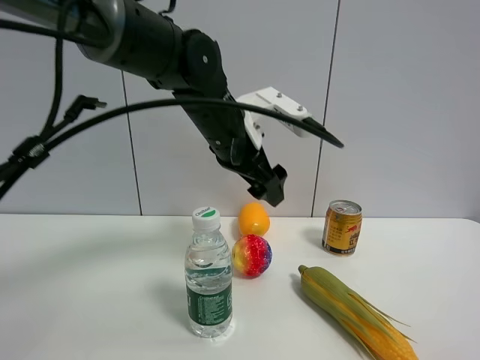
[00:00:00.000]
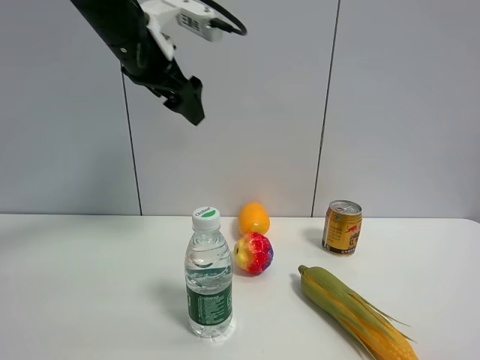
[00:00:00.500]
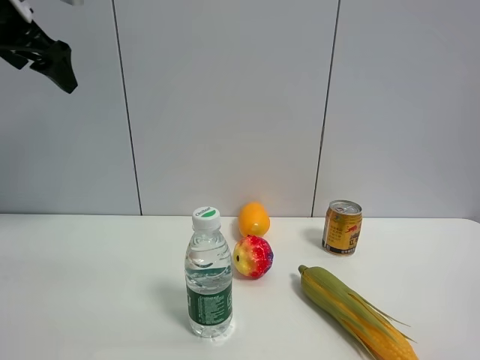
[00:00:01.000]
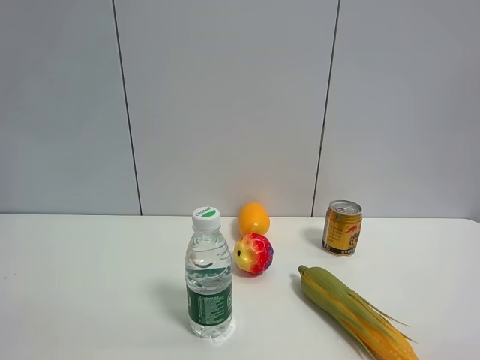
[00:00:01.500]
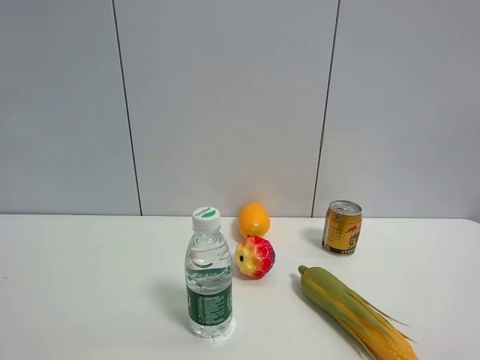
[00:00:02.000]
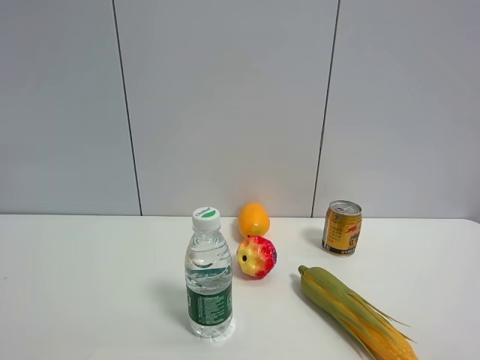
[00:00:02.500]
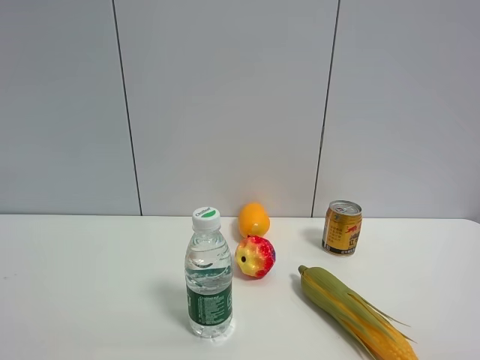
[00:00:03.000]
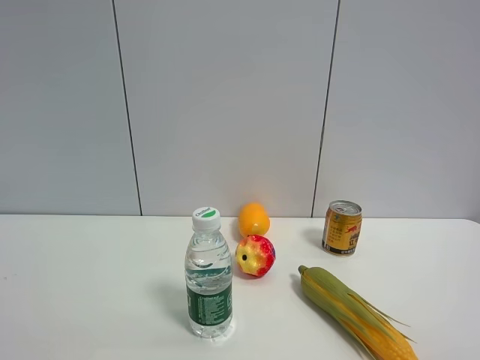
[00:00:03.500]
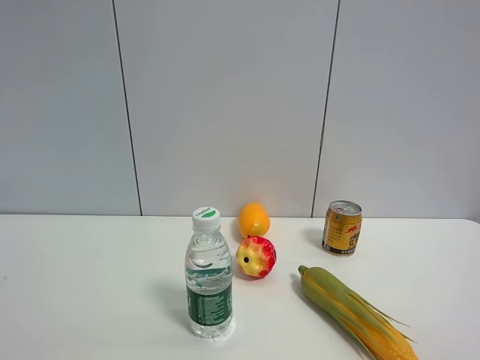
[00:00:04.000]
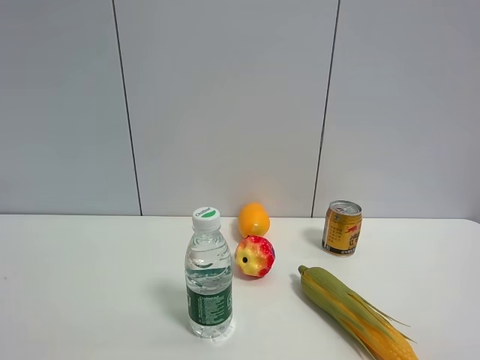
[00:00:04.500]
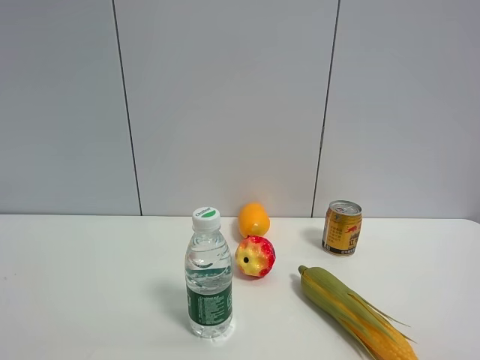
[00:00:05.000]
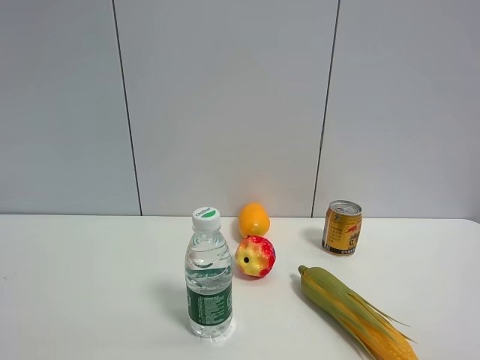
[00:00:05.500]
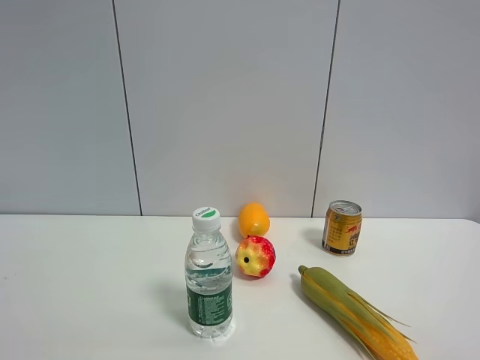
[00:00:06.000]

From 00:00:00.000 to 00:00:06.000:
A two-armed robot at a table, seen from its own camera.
Task of the whole recording: the gripper move the object.
From 00:00:00.000 to 00:00:02.000: The left gripper travels to the left, backward and upward by approximately 40 cm.
From 00:00:04.000 to 00:00:06.000: Both grippers stay put.

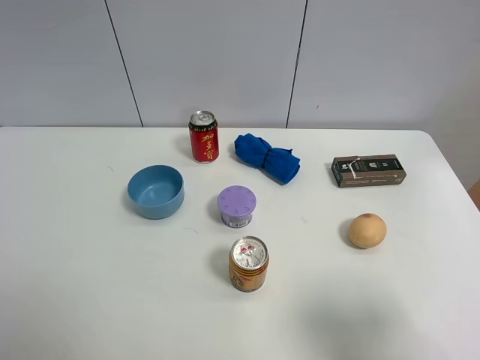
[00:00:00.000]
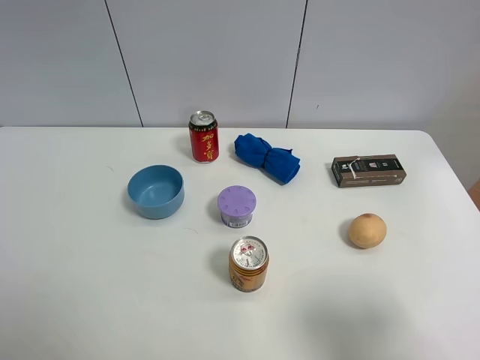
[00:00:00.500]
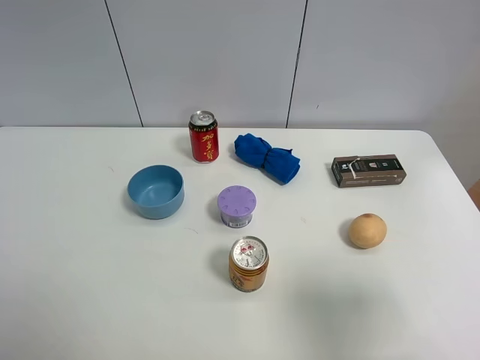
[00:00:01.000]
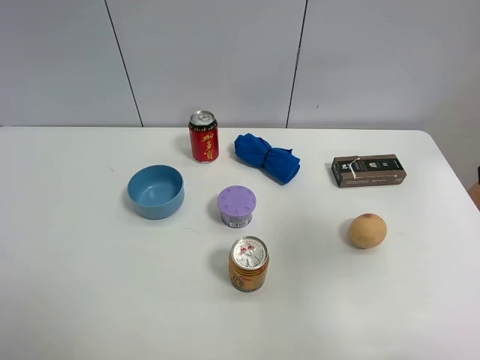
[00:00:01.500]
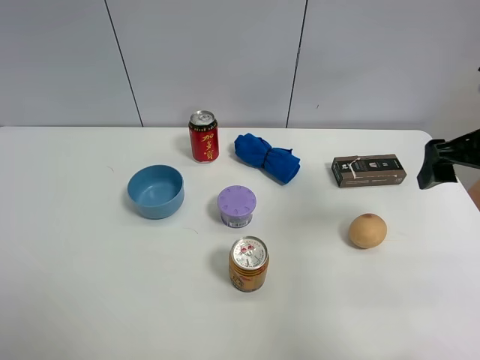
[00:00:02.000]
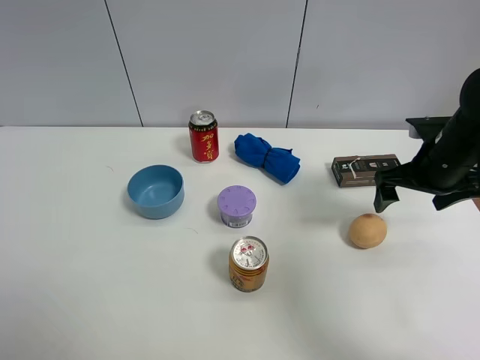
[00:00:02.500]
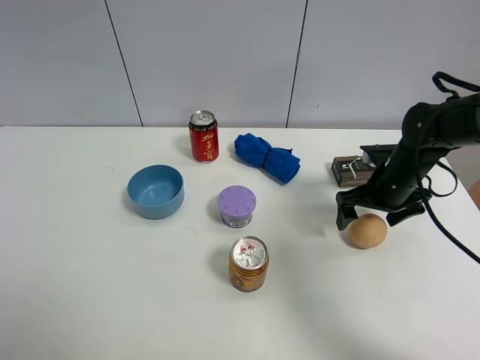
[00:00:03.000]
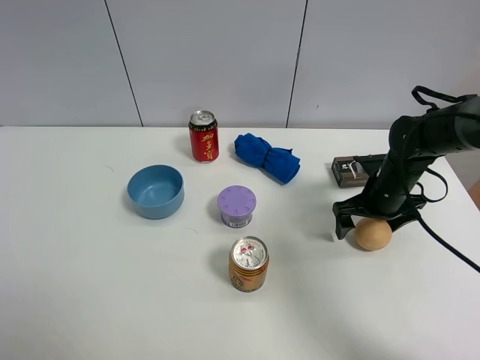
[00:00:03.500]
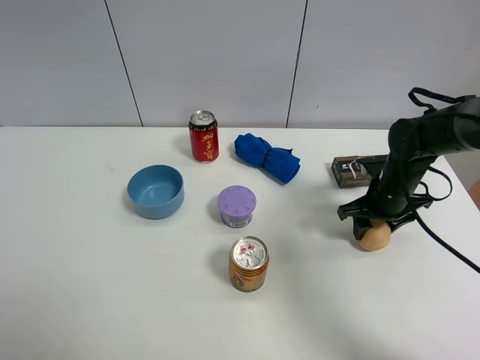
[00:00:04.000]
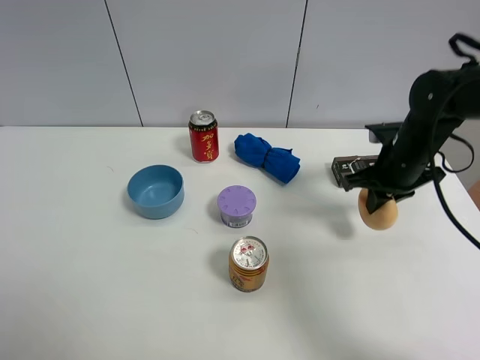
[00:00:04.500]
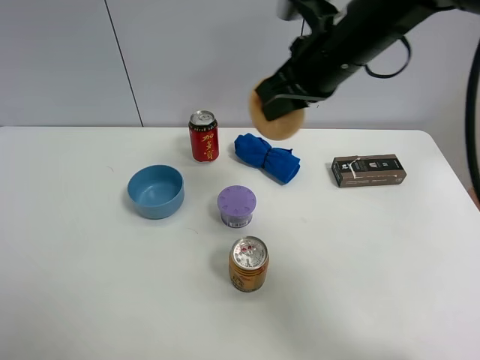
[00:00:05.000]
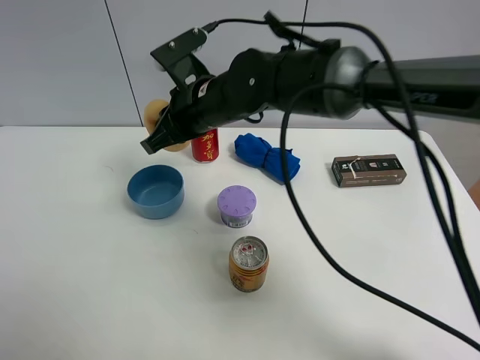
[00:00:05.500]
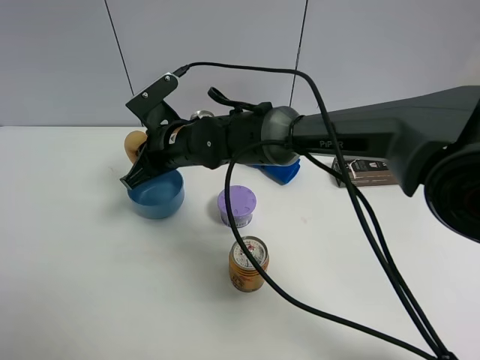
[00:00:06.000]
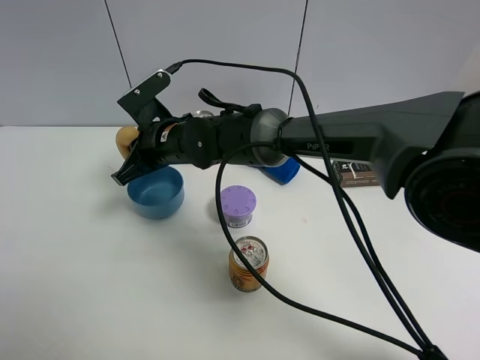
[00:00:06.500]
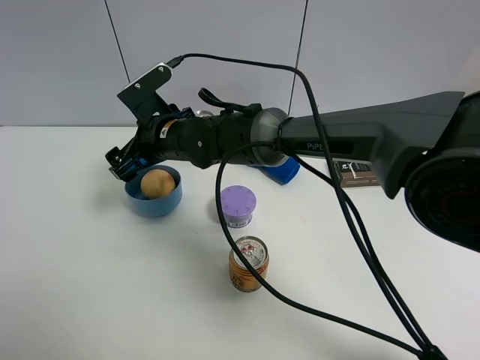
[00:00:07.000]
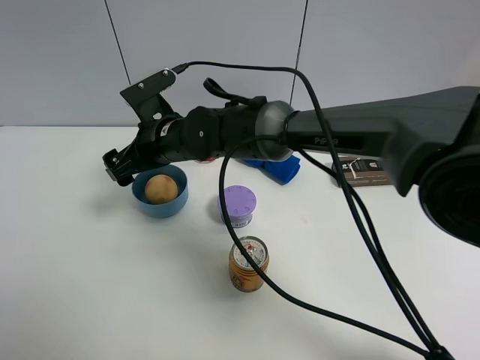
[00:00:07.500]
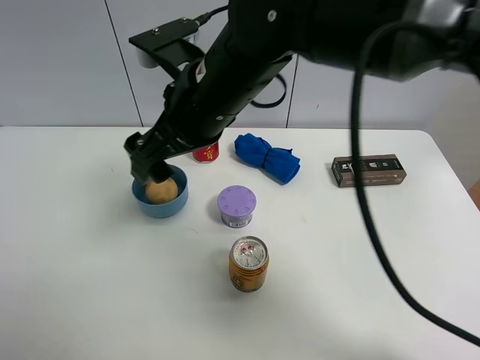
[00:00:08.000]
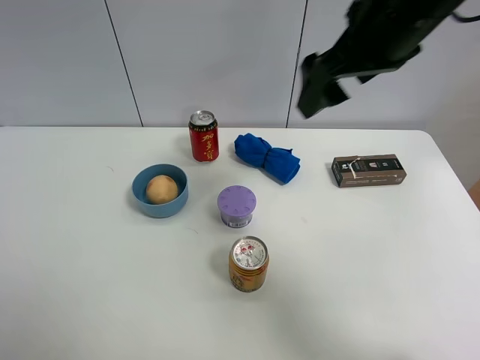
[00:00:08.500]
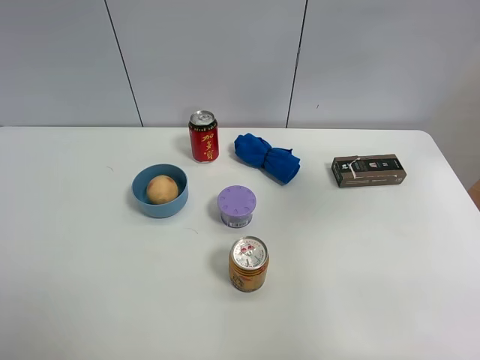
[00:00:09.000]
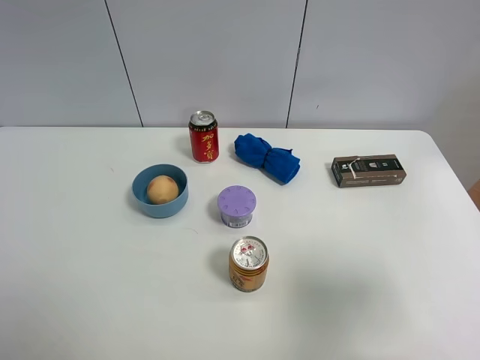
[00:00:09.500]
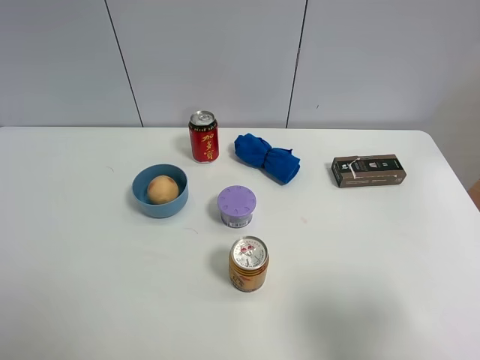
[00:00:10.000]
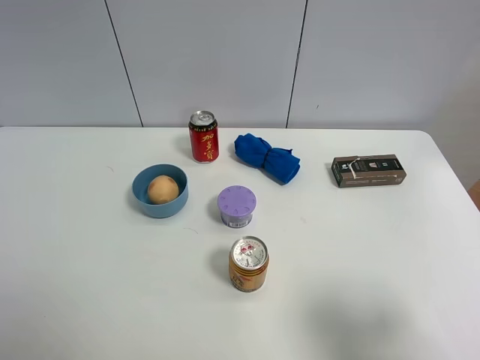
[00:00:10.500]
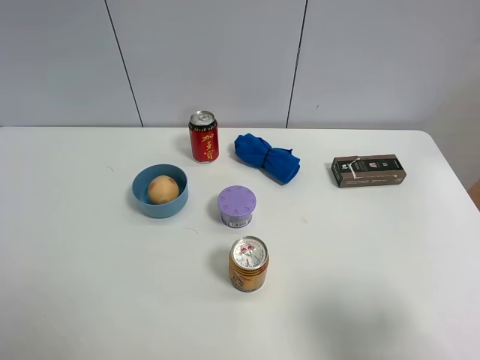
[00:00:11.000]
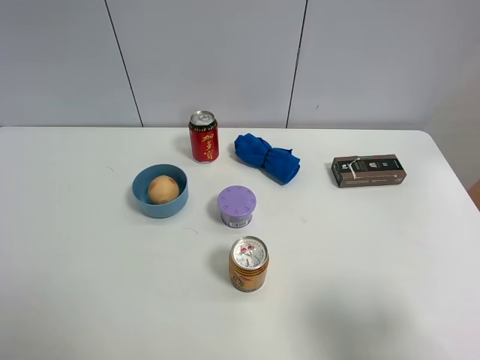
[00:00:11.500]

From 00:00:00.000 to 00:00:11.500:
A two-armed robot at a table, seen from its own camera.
Task of the whole recording: the gripper move the object.
Step, from 00:00:00.000 to 00:00:04.000: Grasp the egg yolk pastry with the right gripper.
Step, from 00:00:04.500 to 00:00:06.500: Place the egg yolk pastry on the table with the right gripper.
From 00:00:00.000 to 00:00:02.000: The right gripper moves forward, some 25 cm.
From 00:00:02.000 to 00:00:04.000: The right gripper shifts approximately 20 cm downward and forward, and closes its fingers.
From 00:00:04.000 to 00:00:06.000: The right gripper is displaced to the left by some 35 cm, and closes.
From 00:00:06.000 to 00:00:07.500: The right gripper opens up.
From 00:00:07.500 to 00:00:09.500: The right gripper moves to the right and backward, roughly 50 cm.
From 00:00:09.500 to 00:00:11.500: The right gripper goes about 5 cm downward.
